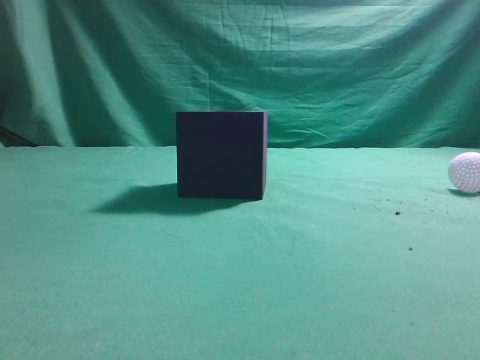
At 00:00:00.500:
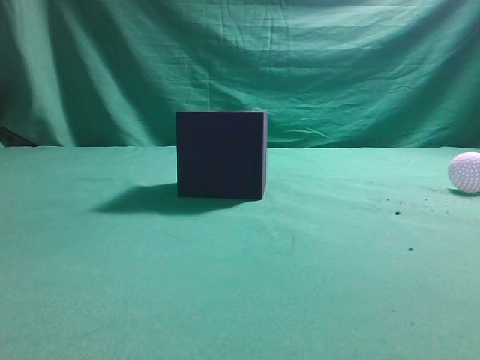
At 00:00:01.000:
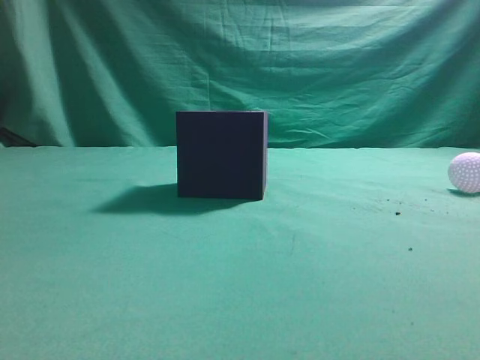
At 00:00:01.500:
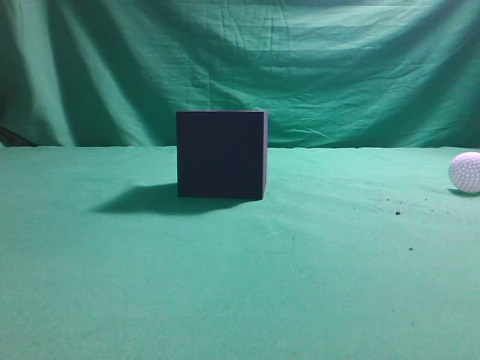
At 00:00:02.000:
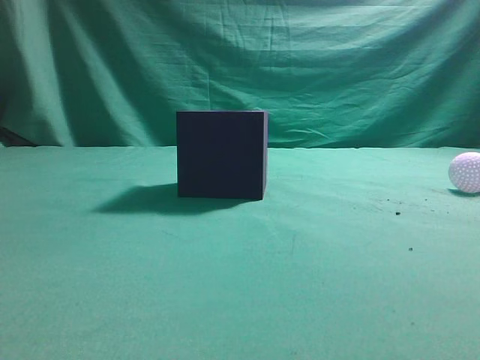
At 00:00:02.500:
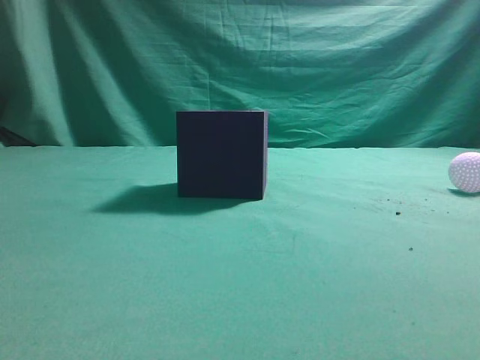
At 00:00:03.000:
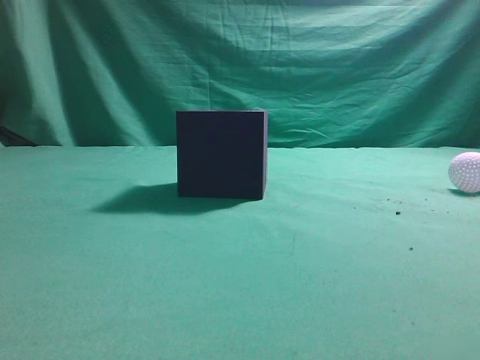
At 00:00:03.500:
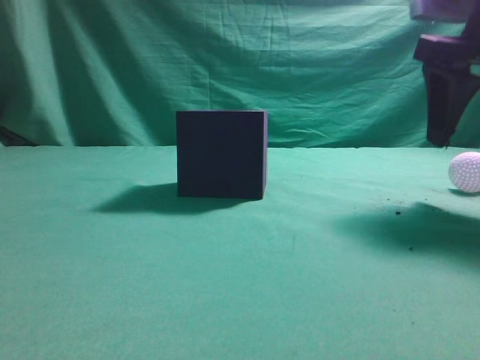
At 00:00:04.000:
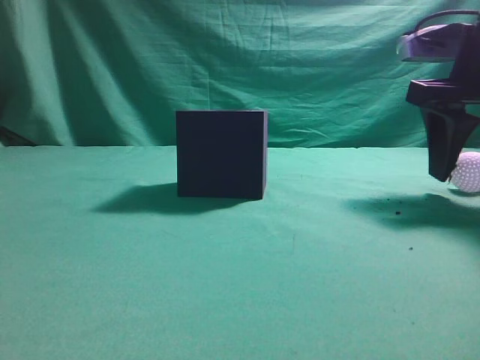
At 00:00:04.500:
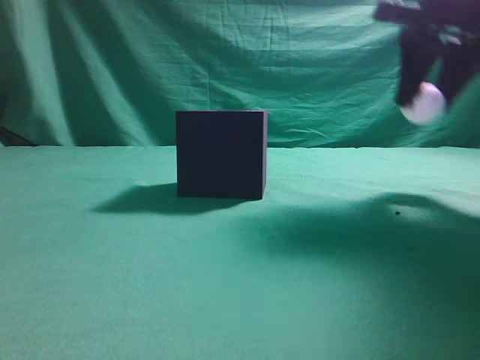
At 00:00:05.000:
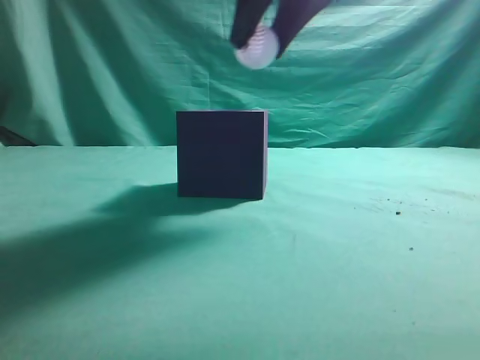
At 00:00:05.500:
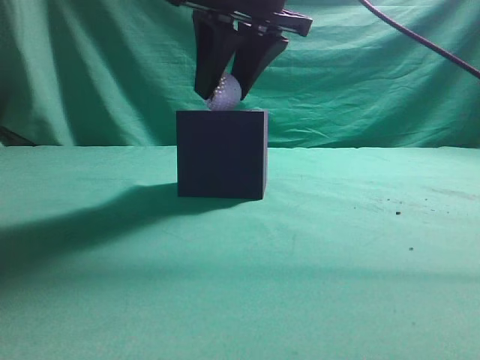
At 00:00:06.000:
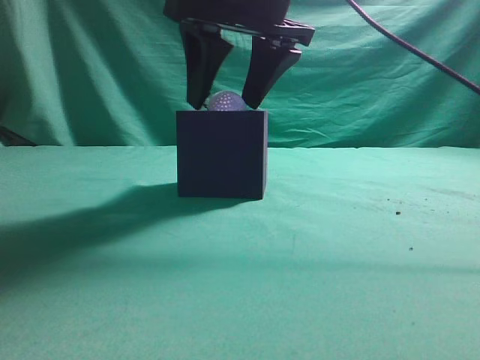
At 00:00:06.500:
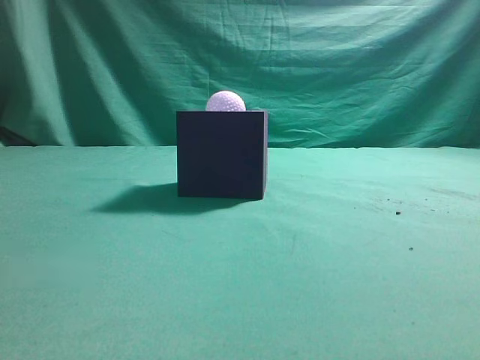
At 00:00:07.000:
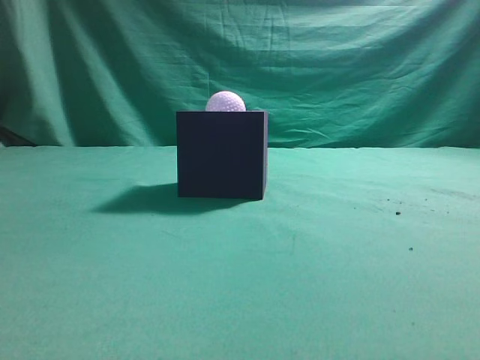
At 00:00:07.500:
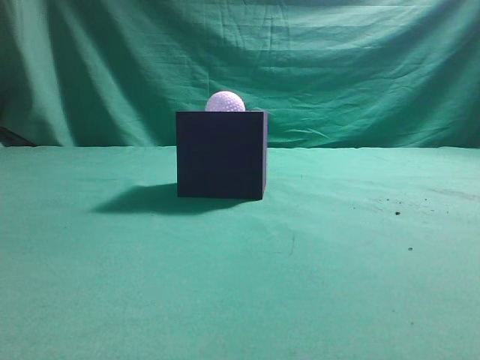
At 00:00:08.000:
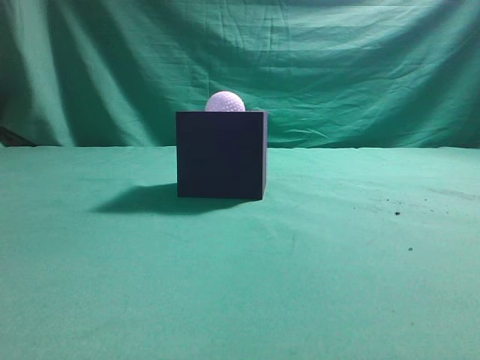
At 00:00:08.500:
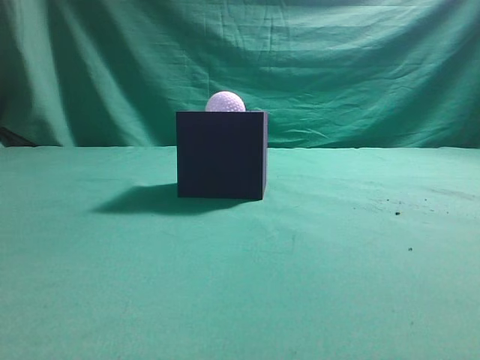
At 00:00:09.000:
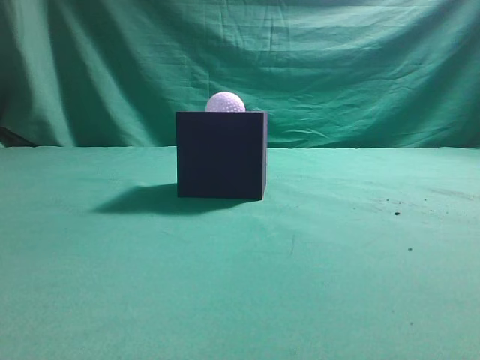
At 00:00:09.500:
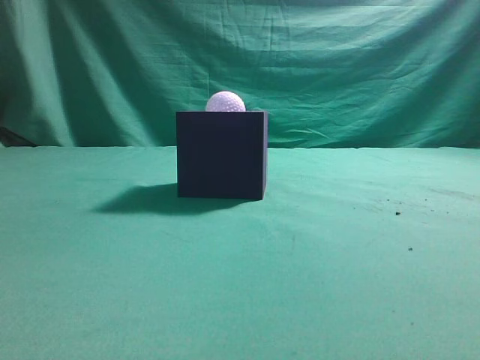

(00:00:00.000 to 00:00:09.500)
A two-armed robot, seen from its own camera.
Task of the whole recording: Pick up the ball and place it in the circular groove above the cube.
Step, 00:00:00.000 - 00:00:03.500: Grasp the sphere on the table.
Step, 00:00:04.000 - 00:00:05.000: Place the sphere into the sphere-shaped recess.
00:00:02.000 - 00:00:04.000: The right gripper goes some 30 cm forward, and opens up.
00:00:04.000 - 00:00:05.500: The right gripper moves to the left, roughly 20 cm, and closes its fingers.
00:00:05.500 - 00:00:07.500: The right gripper goes approximately 35 cm backward, to the right and upward, and closes up.
